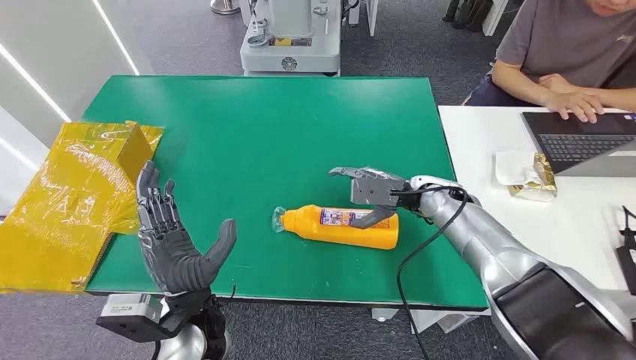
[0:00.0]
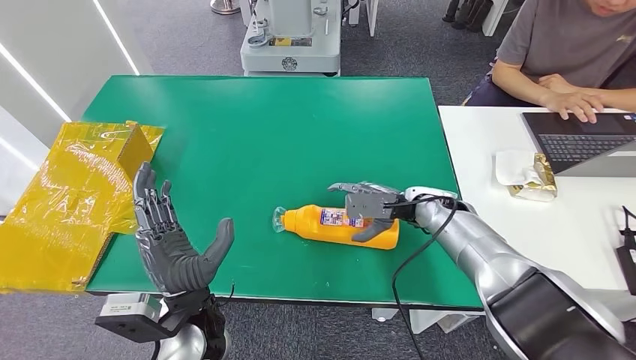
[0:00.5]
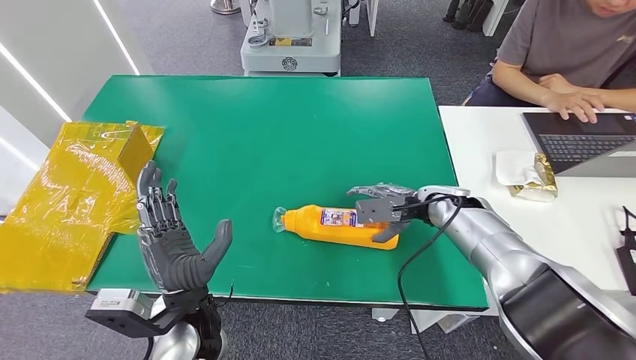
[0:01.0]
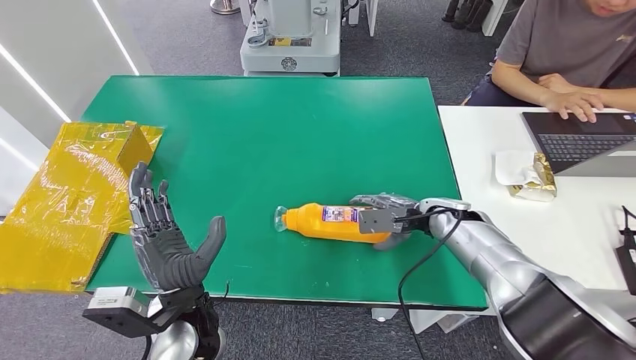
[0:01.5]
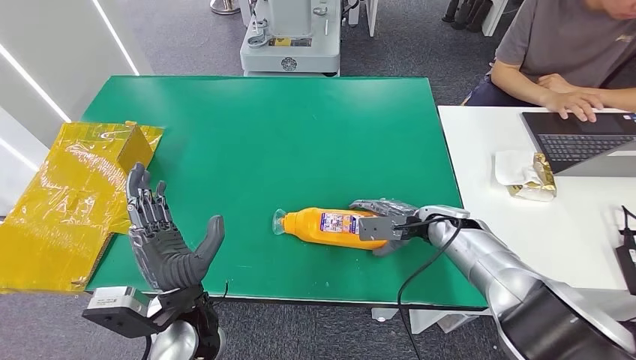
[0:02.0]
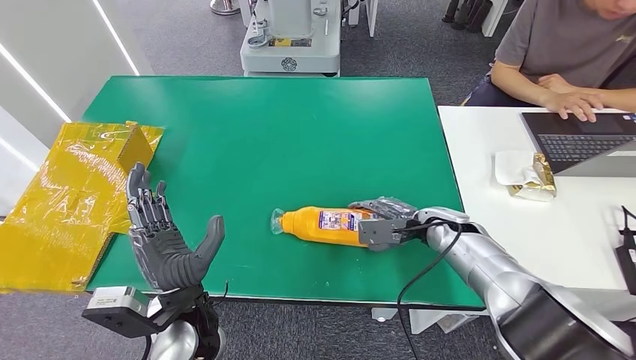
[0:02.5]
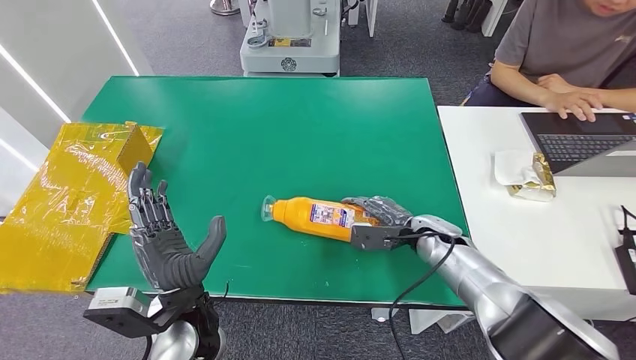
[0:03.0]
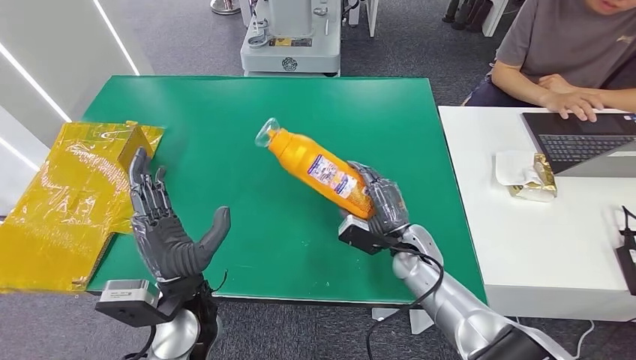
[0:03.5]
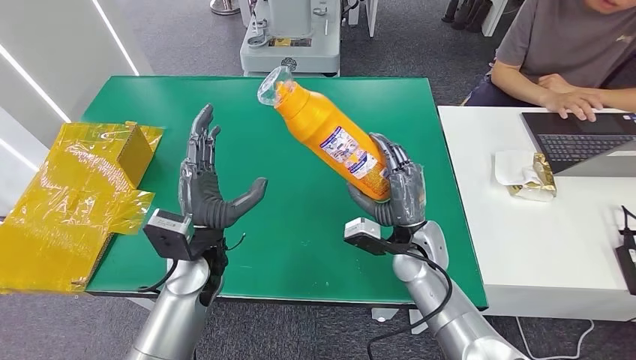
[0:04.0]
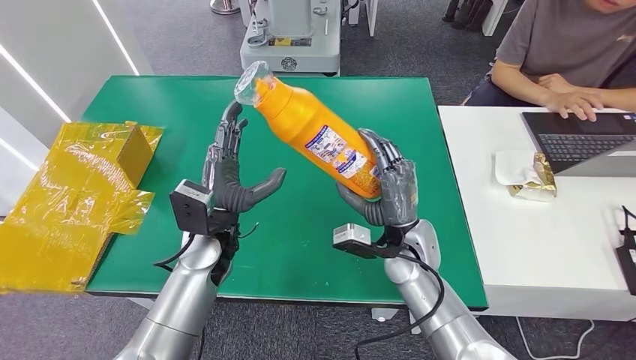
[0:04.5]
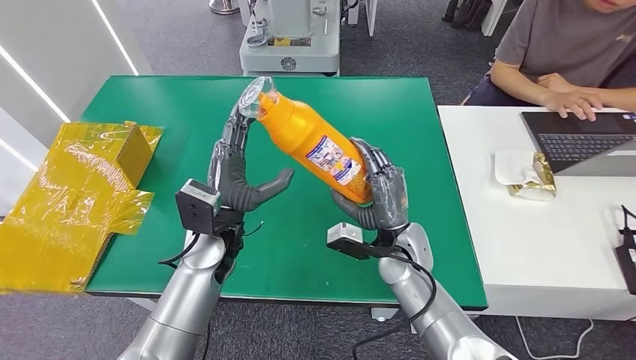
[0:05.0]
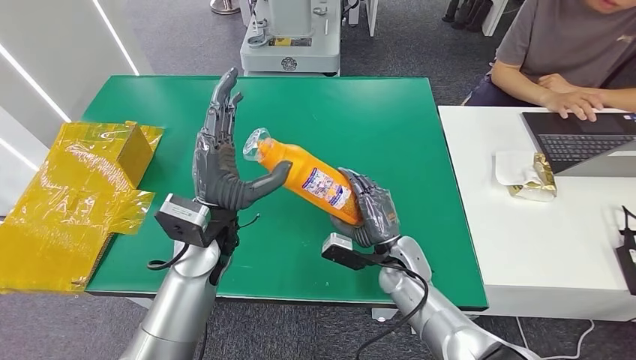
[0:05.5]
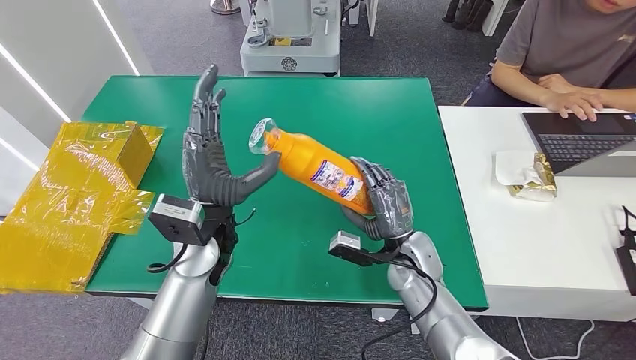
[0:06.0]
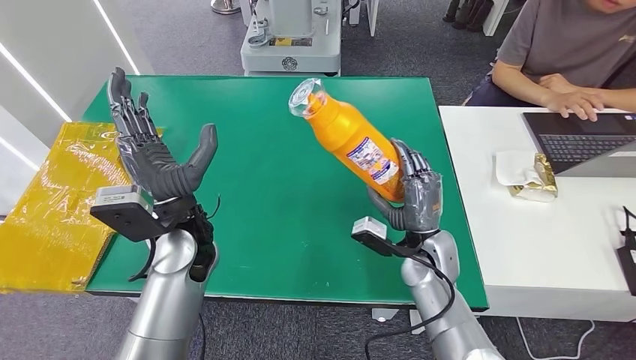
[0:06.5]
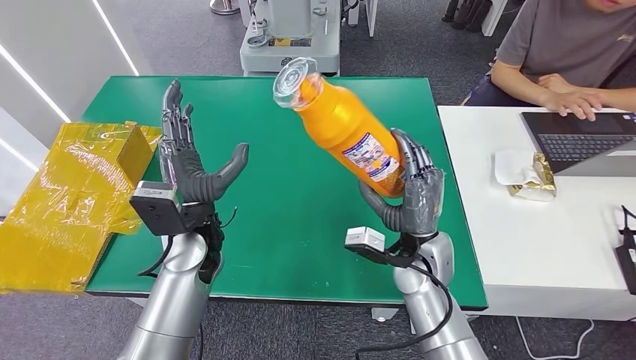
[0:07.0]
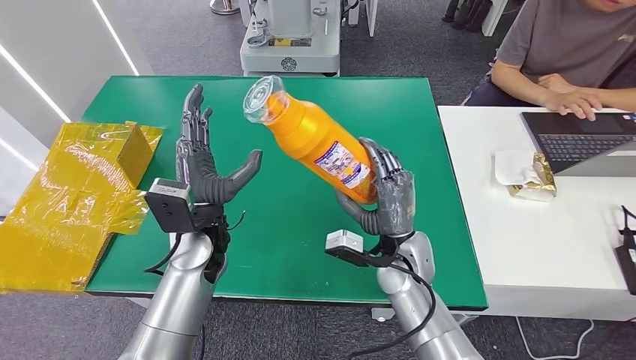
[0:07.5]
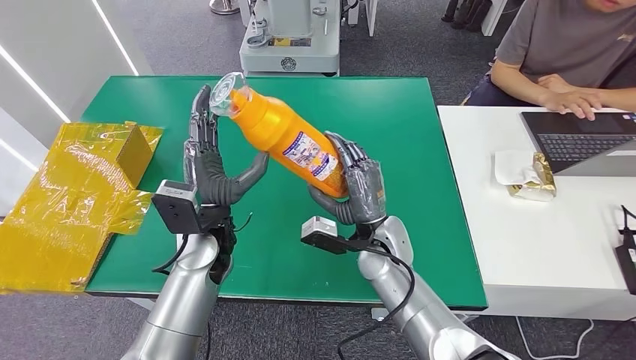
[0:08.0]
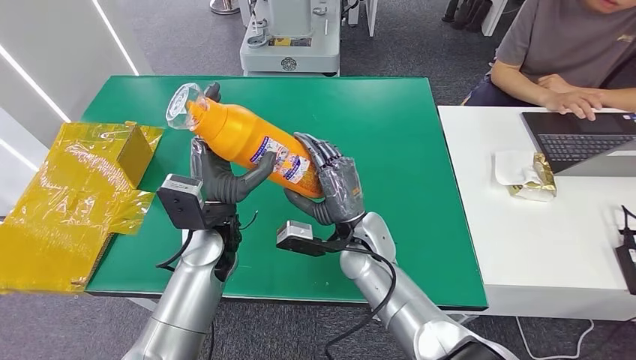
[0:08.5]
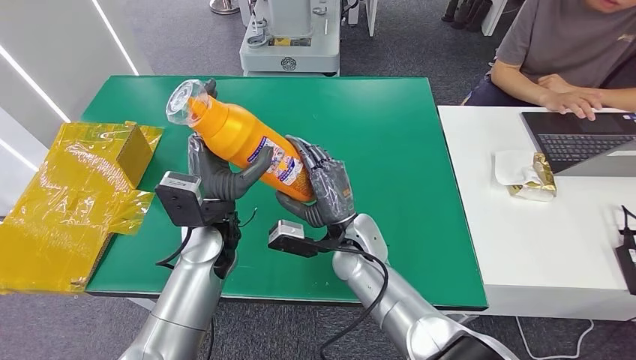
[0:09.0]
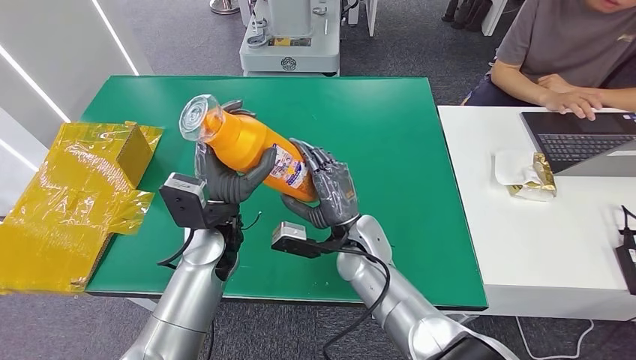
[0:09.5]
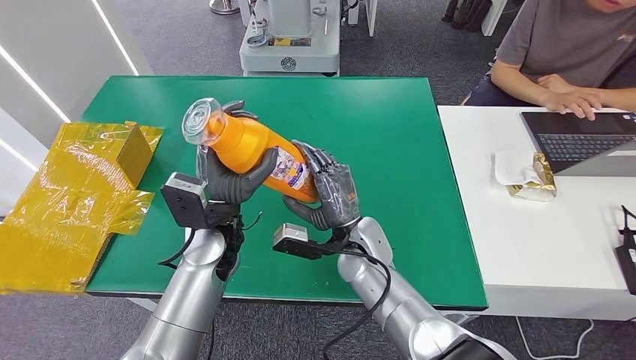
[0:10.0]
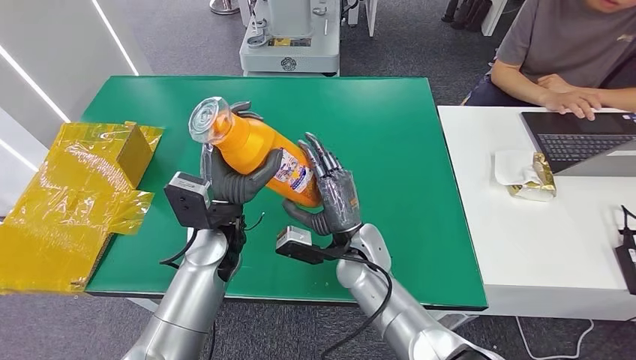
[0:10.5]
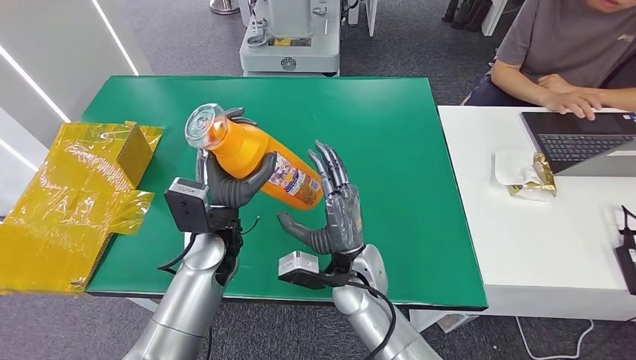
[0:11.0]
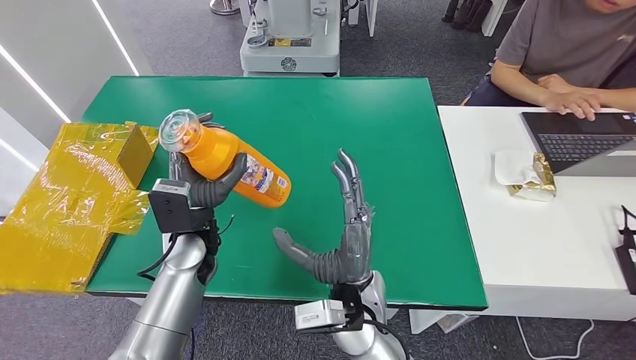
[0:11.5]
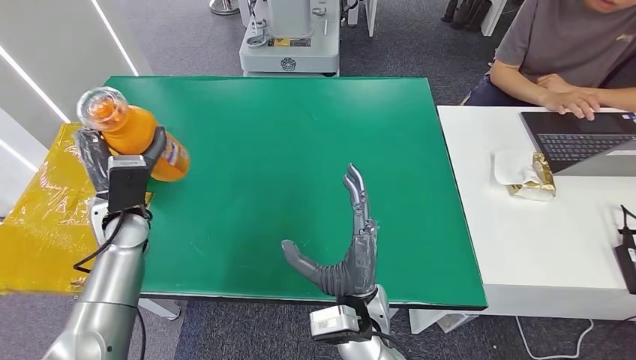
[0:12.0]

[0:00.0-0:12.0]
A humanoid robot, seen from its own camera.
Step, 0:00.0 to 0:06.0: Pick up the bottle from the table.
0:04.0 to 0:06.0: The left hand shifts some 5 cm upward.
0:06.0 to 0:08.0: The right hand is displaced to the left by about 5 cm.
0:08.0 to 0:10.0: The hands stay close to where they were, moving slightly.

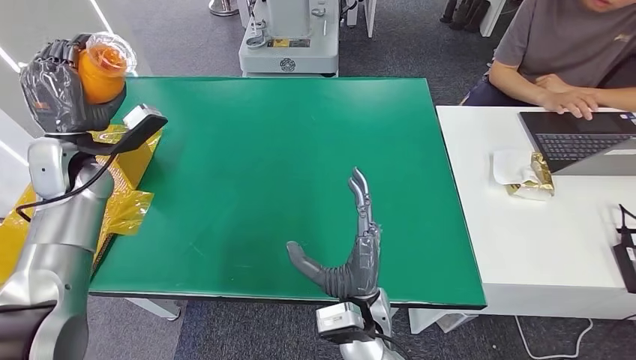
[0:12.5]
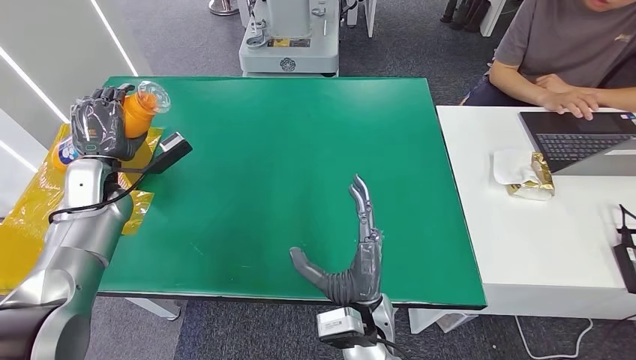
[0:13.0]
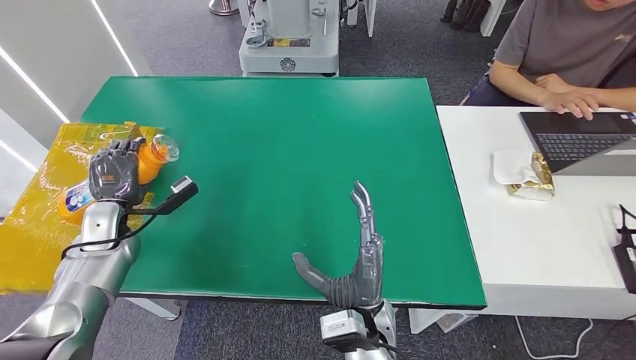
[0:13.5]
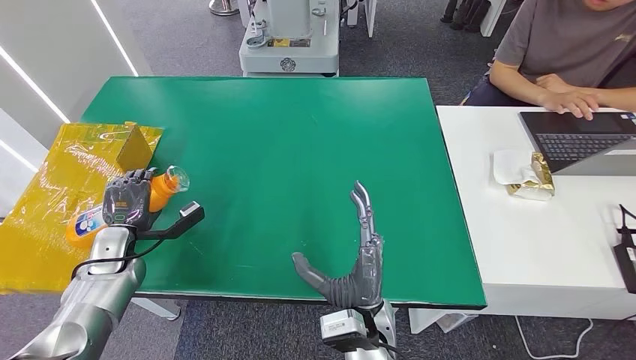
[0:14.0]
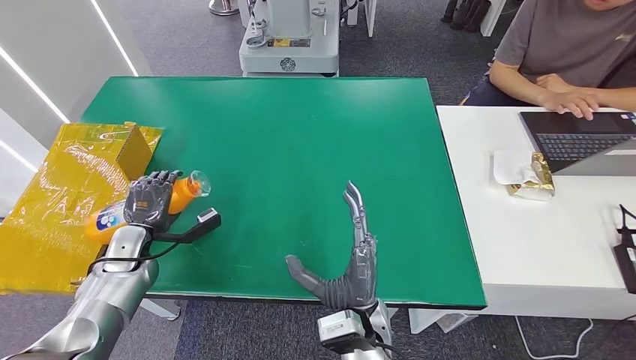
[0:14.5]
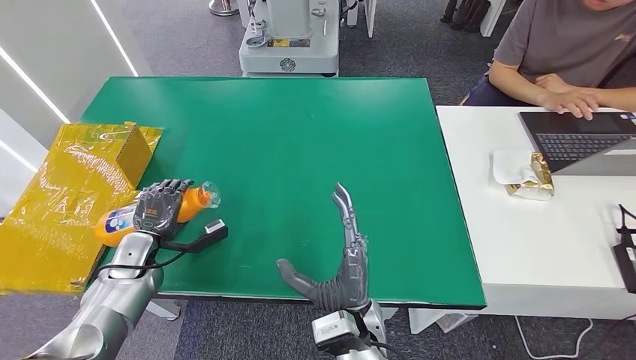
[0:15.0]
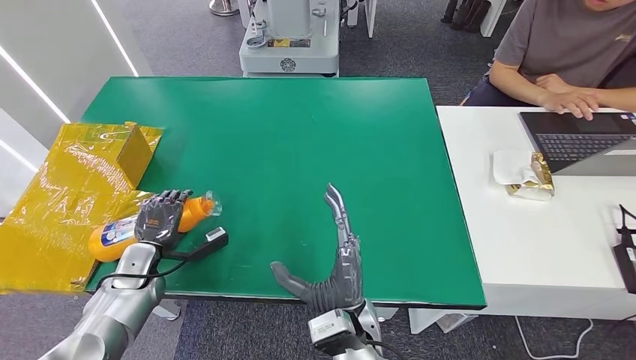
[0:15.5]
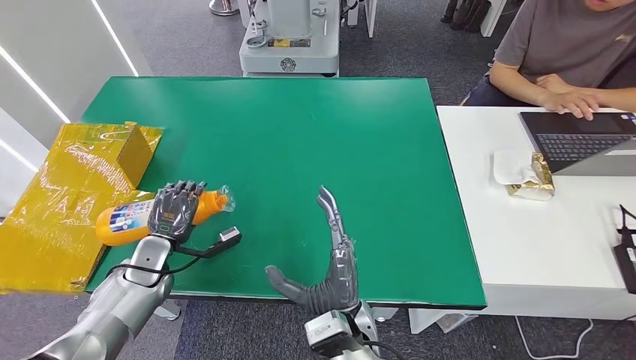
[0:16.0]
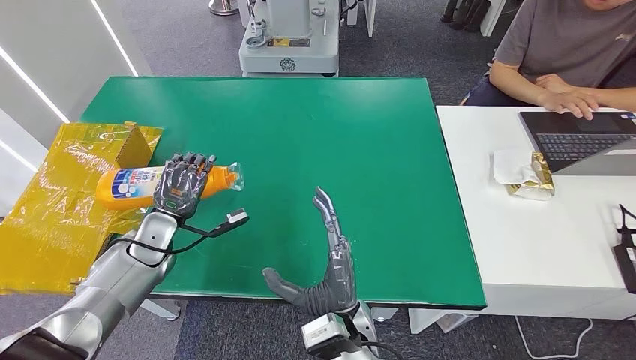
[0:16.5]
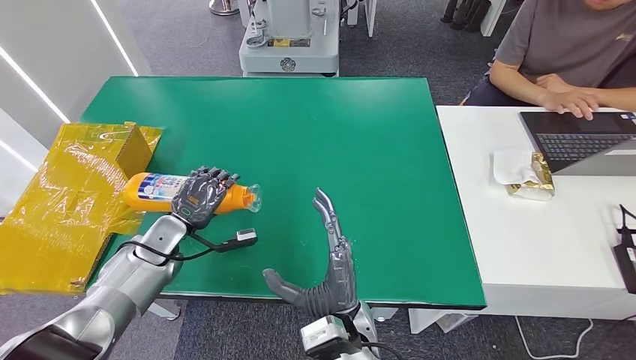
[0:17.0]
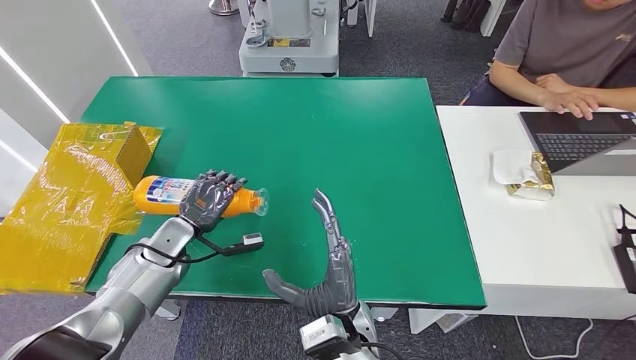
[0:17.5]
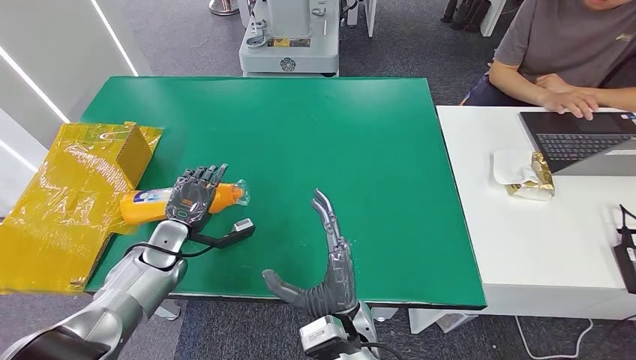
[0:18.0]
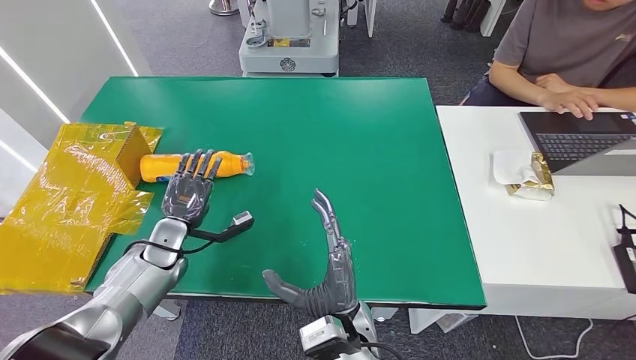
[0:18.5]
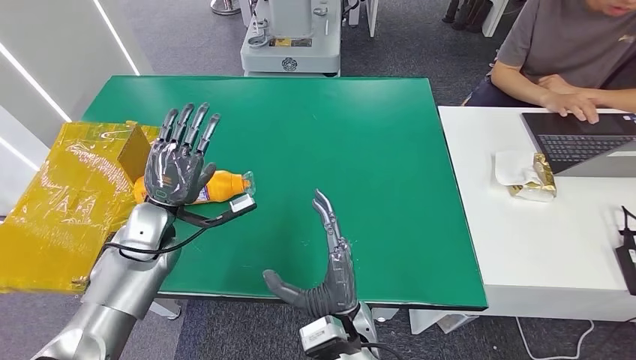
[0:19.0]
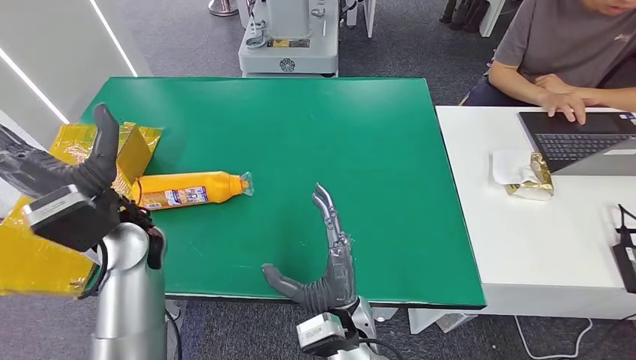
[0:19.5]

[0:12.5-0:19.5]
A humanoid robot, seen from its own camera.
Step, 0:12.5 to 0:19.5: Turn the bottle to the front side.
0:12.5 to 0:14.5: The left hand heads downward and backward, covering approximately 20 cm.
0:14.5 to 0:16.0: There are only small adjustments of the hands.
0:16.0 to 0:17.5: The left hand changes place by roughly 5 cm.
0:17.5 to 0:19.5: The left hand heads upward, covering some 15 cm.
